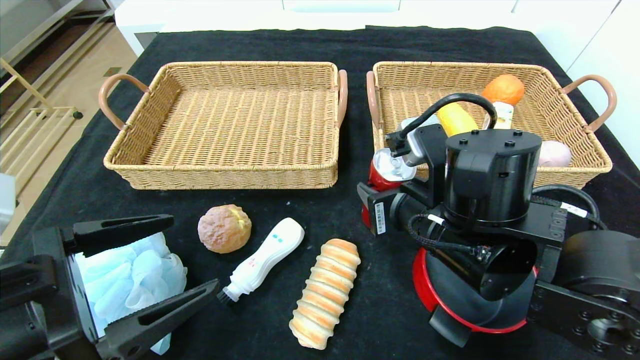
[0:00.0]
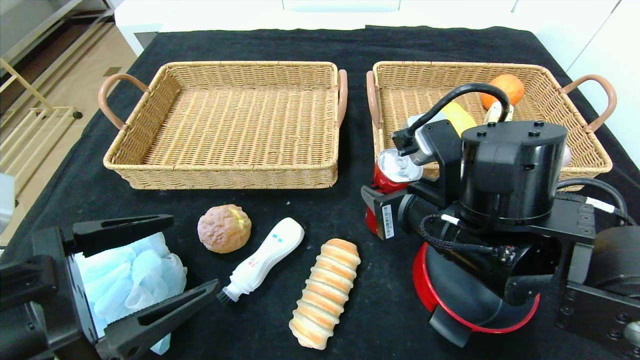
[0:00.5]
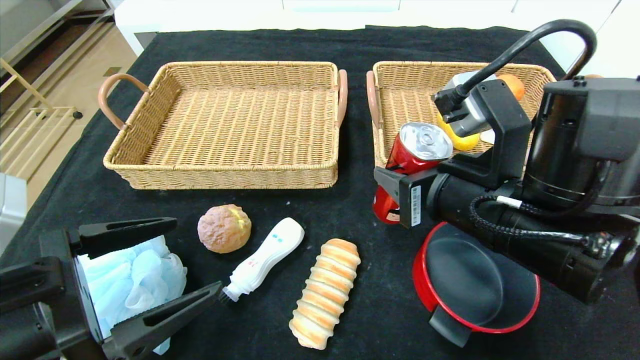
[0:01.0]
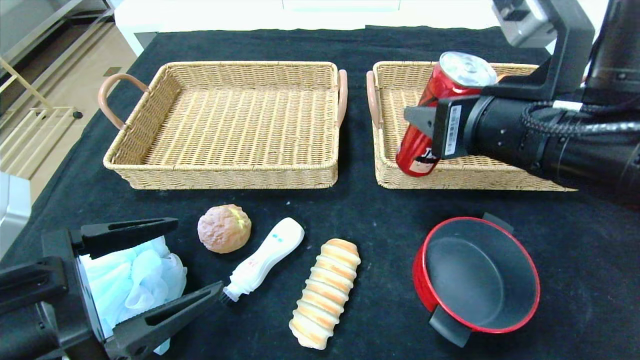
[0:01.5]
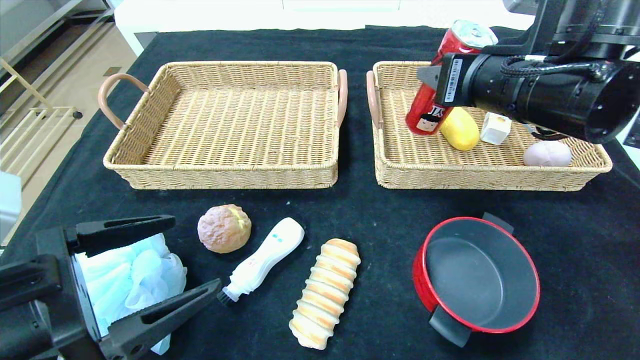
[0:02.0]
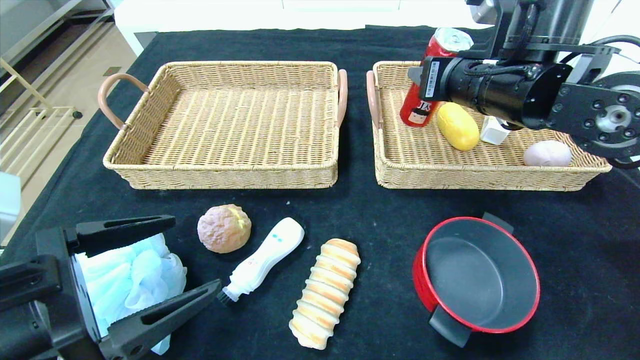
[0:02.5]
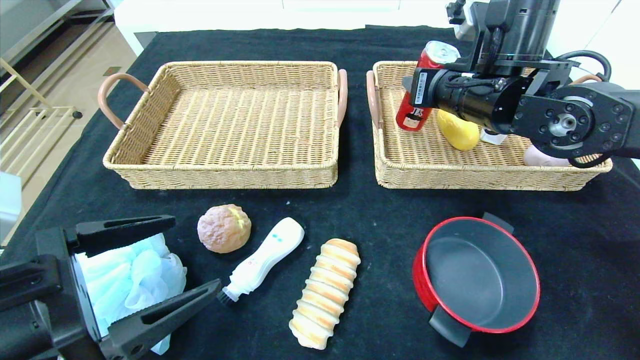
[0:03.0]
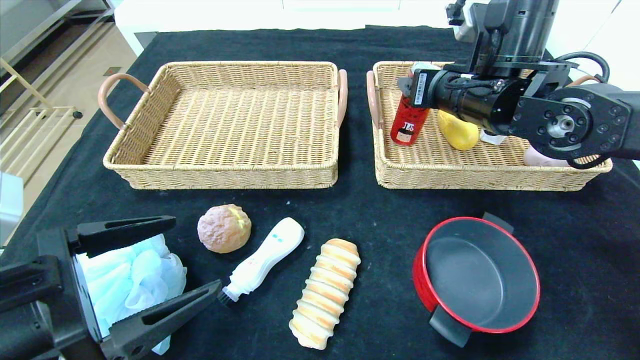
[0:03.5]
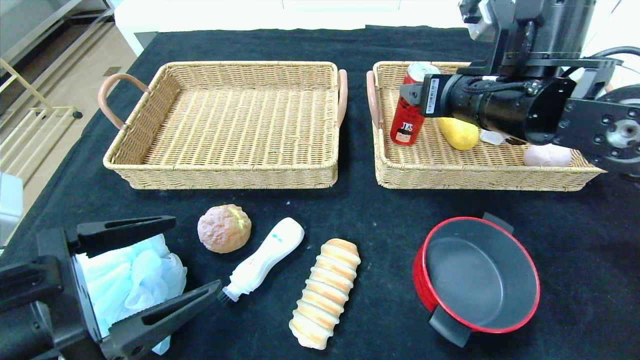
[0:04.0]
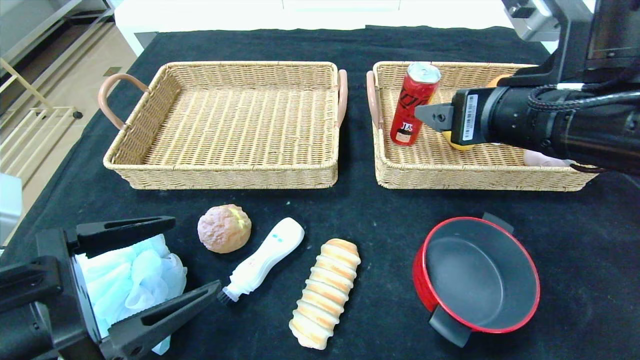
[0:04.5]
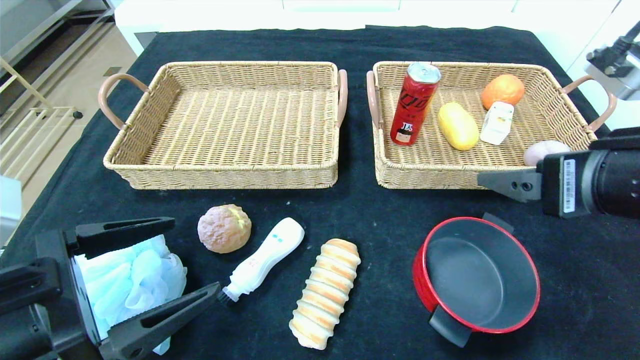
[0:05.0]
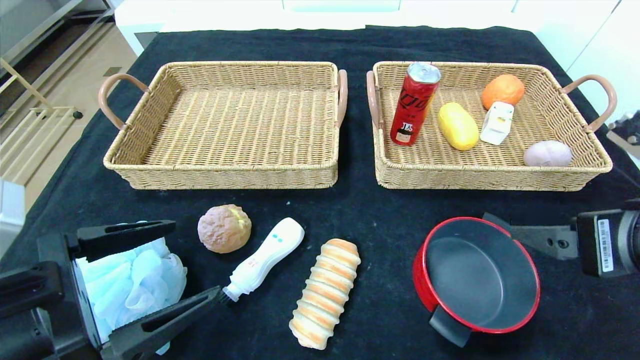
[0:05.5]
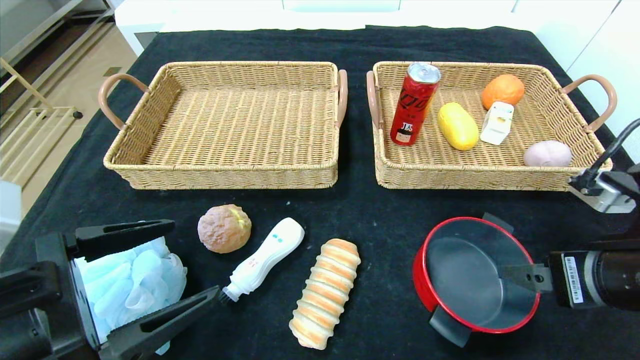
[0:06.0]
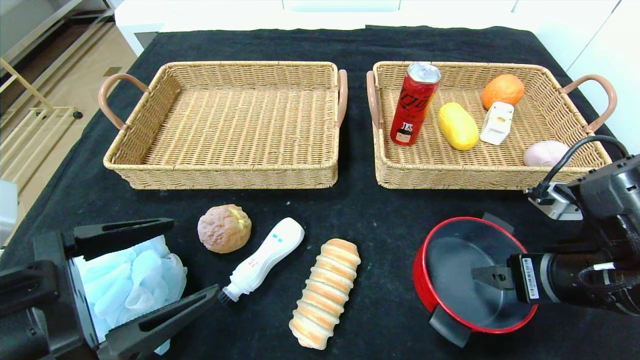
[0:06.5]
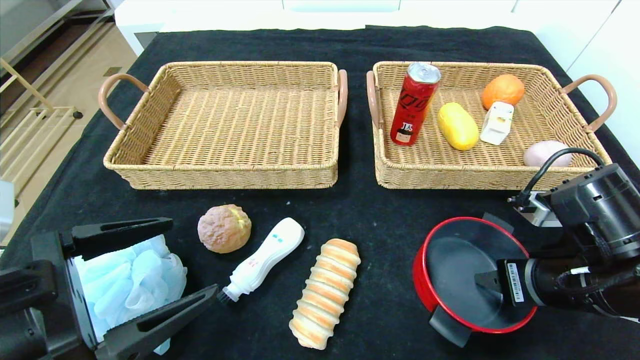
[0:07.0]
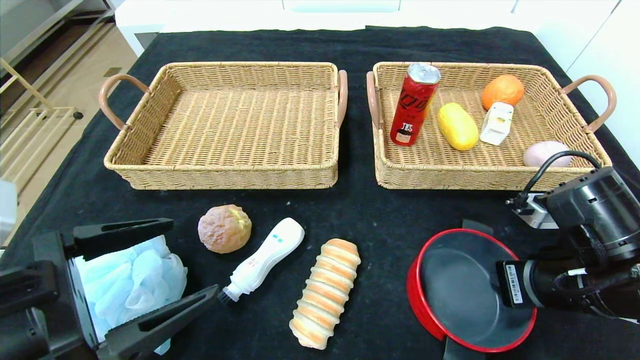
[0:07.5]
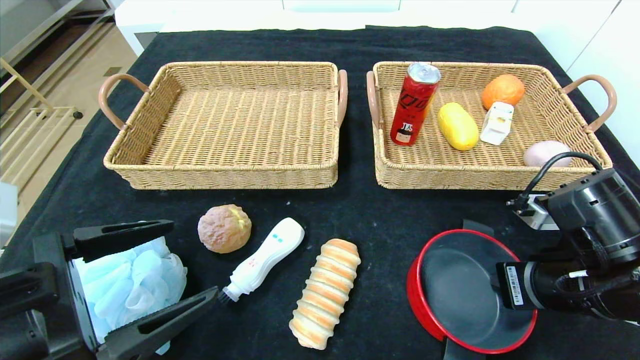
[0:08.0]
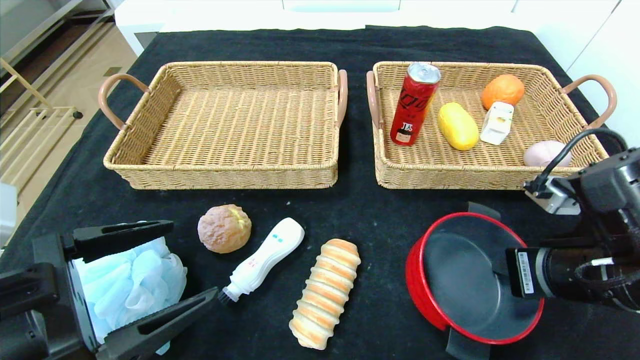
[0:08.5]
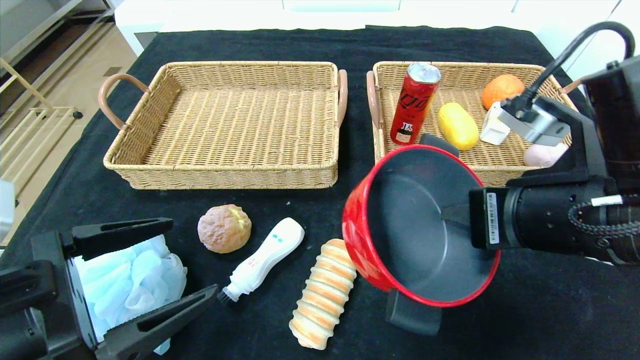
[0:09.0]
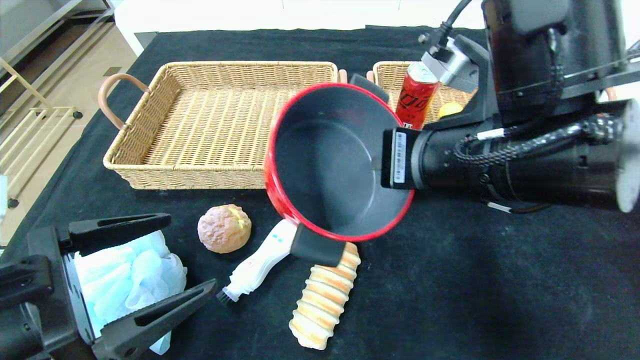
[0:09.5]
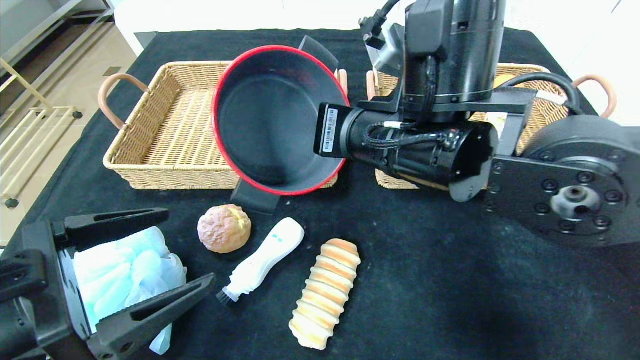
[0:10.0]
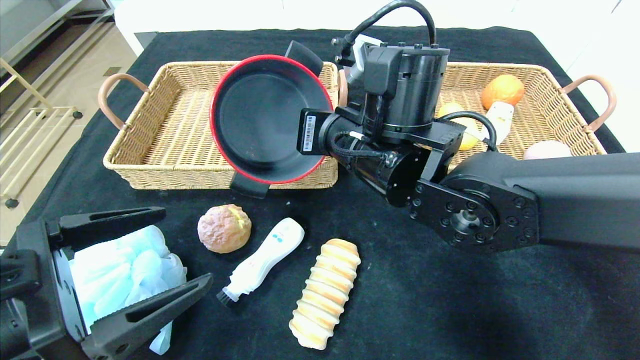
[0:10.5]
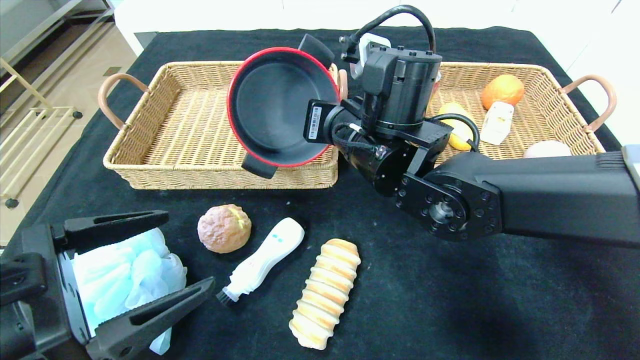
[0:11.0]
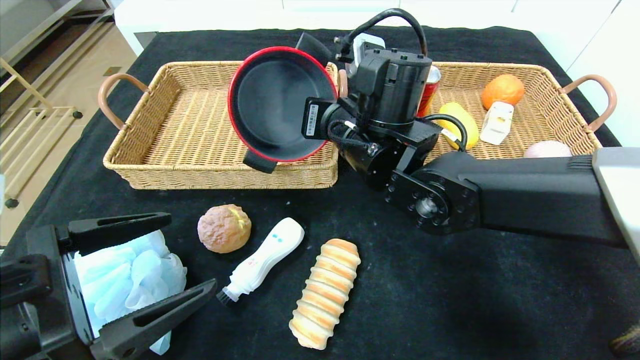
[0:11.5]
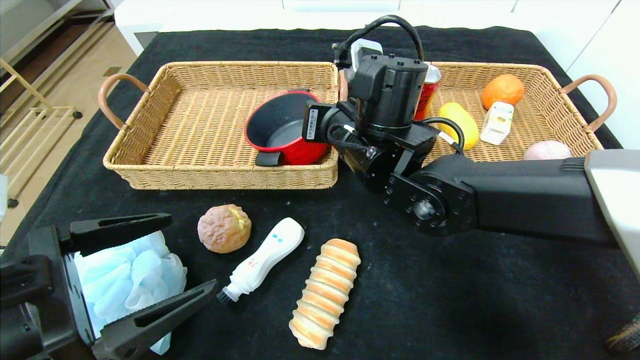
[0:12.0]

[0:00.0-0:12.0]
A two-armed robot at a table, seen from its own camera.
Step, 0:00.0 to 0:03.5: Grasp the canned cola and put it in the right basket.
0:00.0 to 0:02.0: The right gripper goes about 15 cm upward and to the right.
0:02.0 to 0:04.0: The right gripper opens.
0:04.0 to 0:06.0: The right gripper heads backward, downward and to the right, covering approximately 20 cm.
0:06.0 to 0:08.0: The right gripper ends up some 5 cm from where it was, and closes.
0:08.0 to 0:10.0: The right gripper goes about 20 cm to the left and upward.
0:10.0 to 0:12.0: The right gripper travels forward by approximately 5 cm, and opens its fingers.

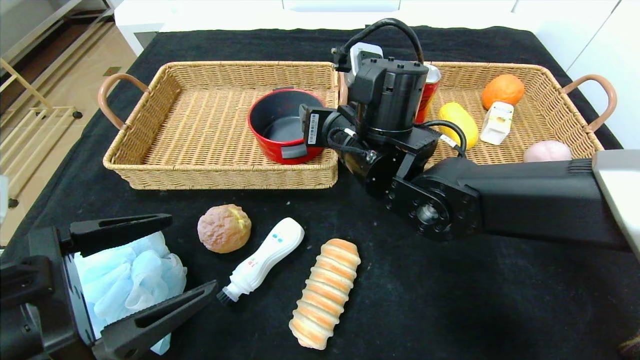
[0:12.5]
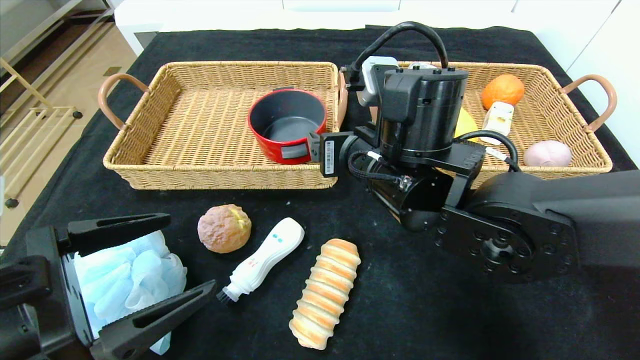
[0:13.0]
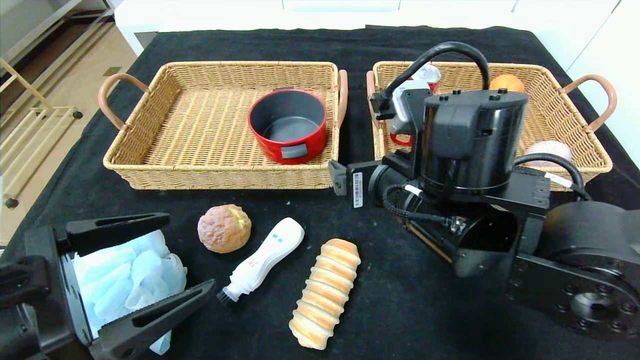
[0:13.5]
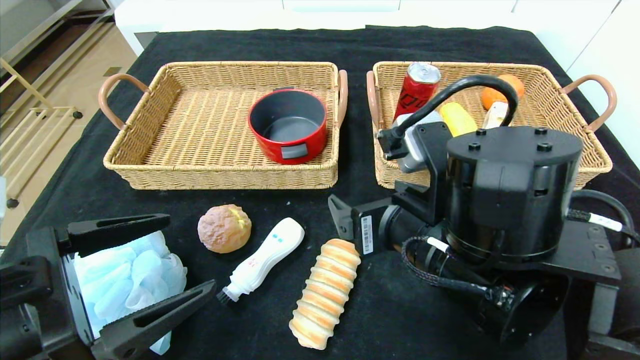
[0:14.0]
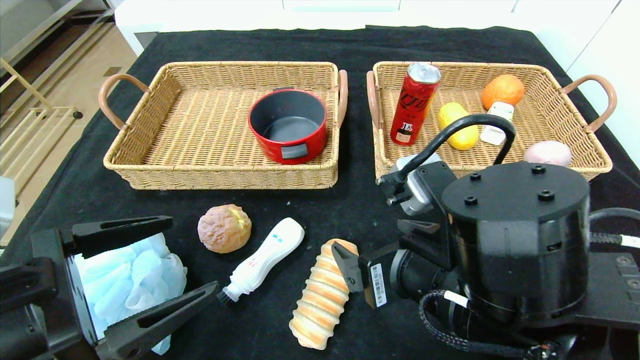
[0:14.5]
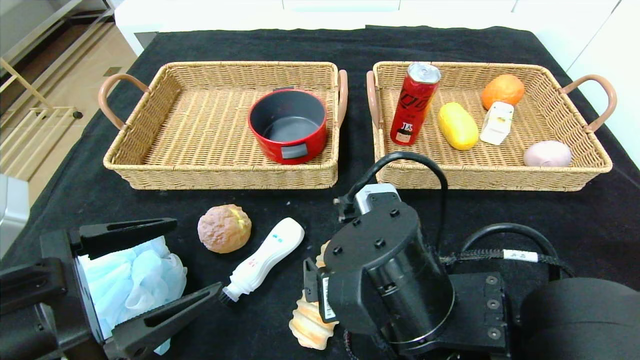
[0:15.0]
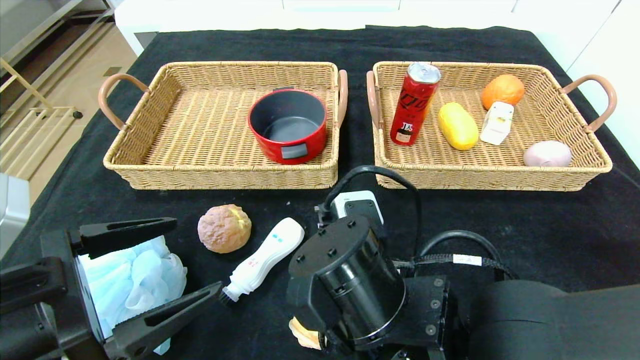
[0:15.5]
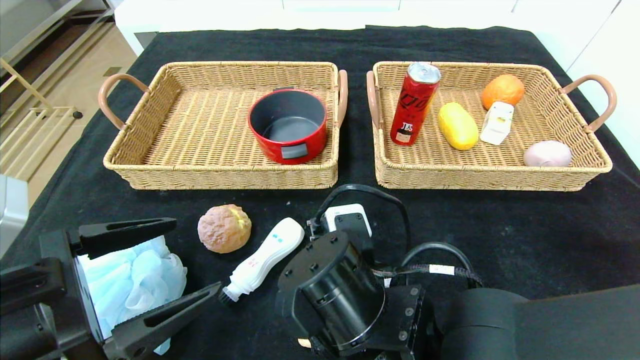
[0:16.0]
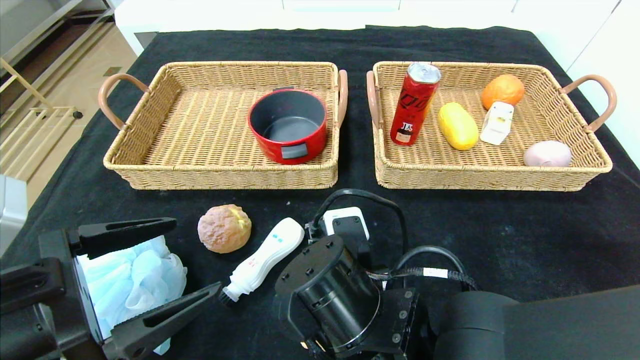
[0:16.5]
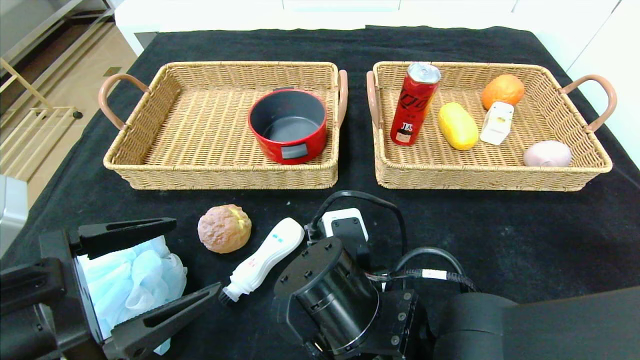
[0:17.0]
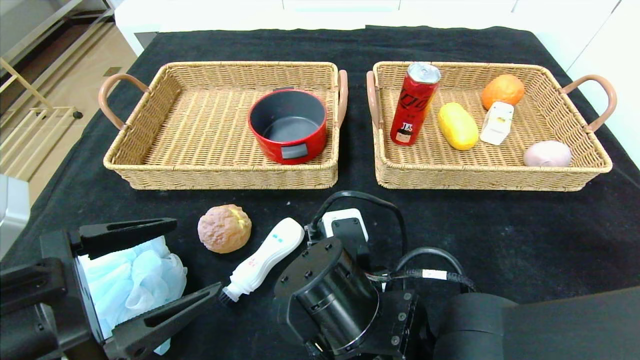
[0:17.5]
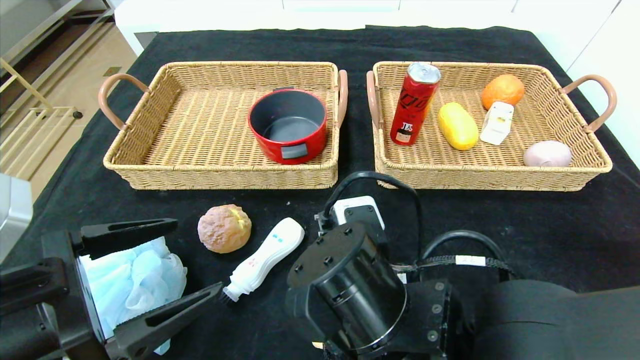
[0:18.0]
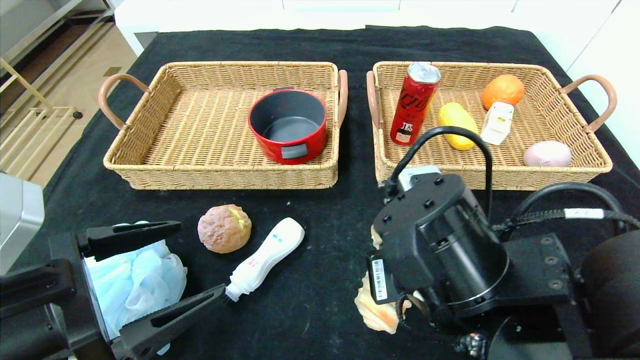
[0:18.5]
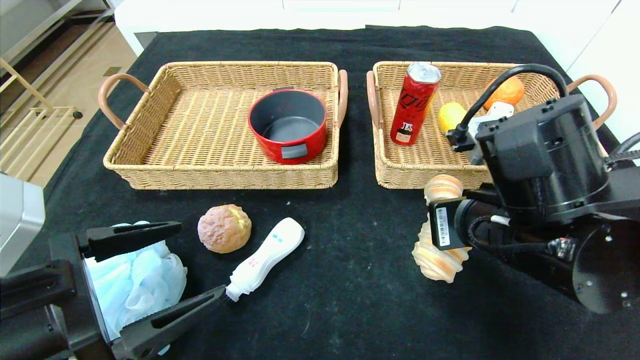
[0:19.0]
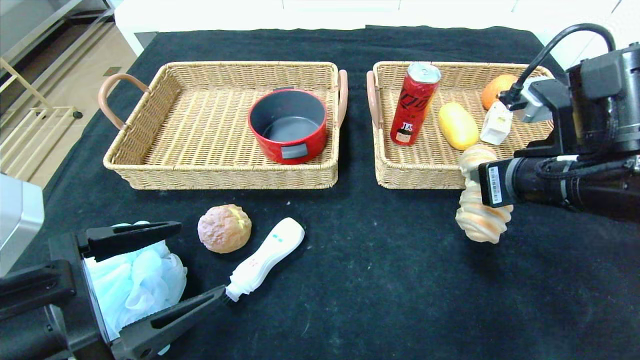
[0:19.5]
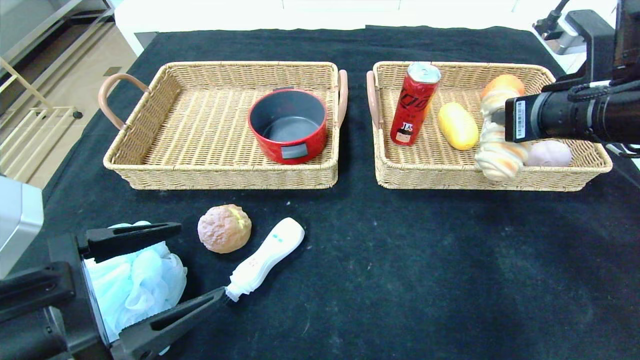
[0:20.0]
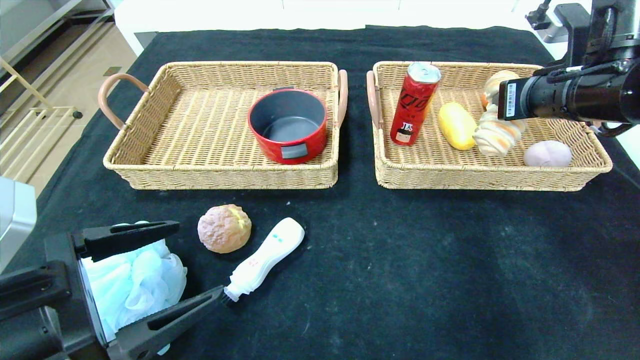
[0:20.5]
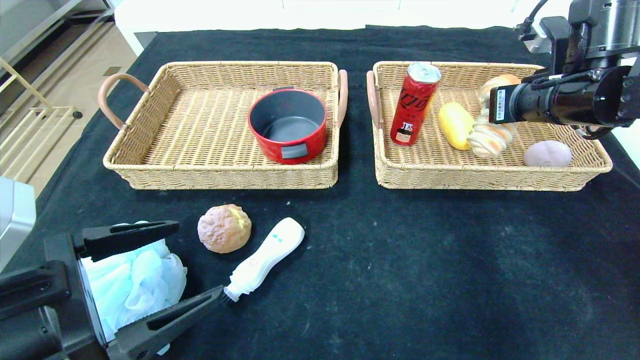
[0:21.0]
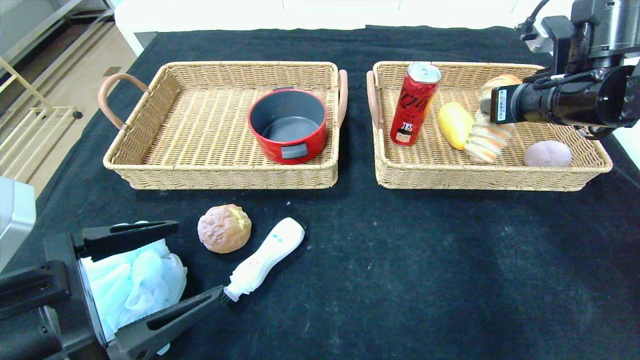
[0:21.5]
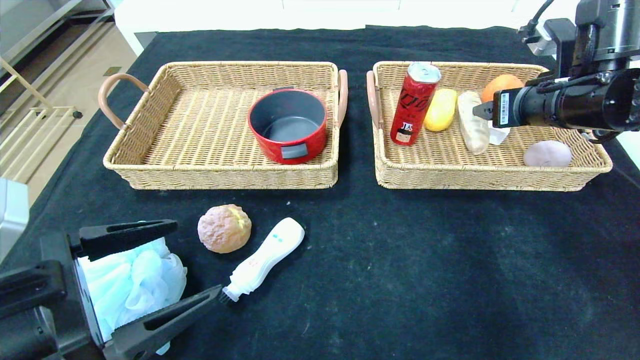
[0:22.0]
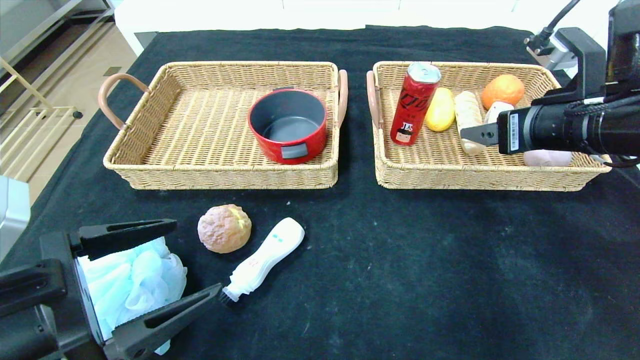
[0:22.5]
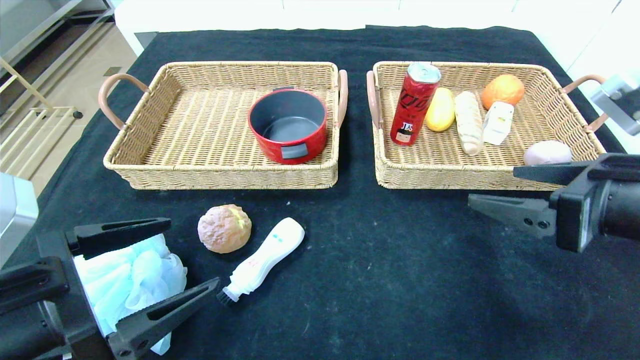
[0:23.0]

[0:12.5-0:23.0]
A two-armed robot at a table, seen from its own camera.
Step, 0:12.5 to 0:21.5: Grasp the long bread and put it in the right basket.
0:12.5 to 0:14.5: The right gripper goes some 15 cm backward and to the right.
0:14.5 to 0:16.5: The right gripper heads to the left and downward, covering roughly 10 cm, and closes its fingers.
0:16.5 to 0:19.0: The right gripper shifts about 15 cm to the right and upward, and closes its fingers.
0:19.0 to 0:21.0: The right gripper goes about 20 cm forward, to the right and upward.
0:21.0 to 0:23.0: The right gripper shifts about 15 cm backward, and opens.
